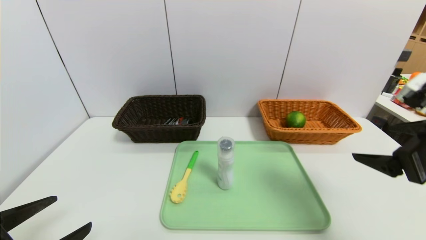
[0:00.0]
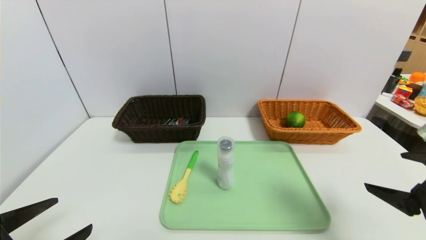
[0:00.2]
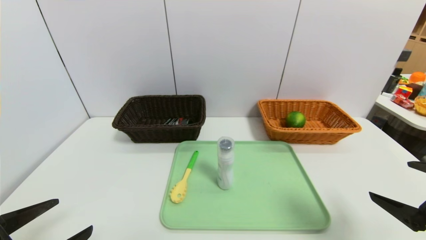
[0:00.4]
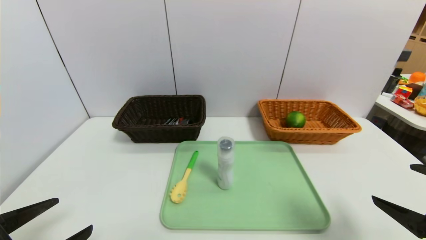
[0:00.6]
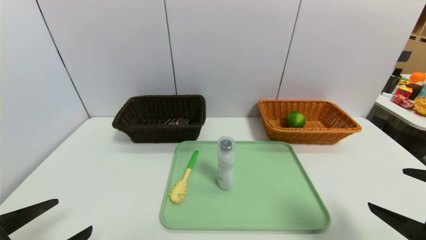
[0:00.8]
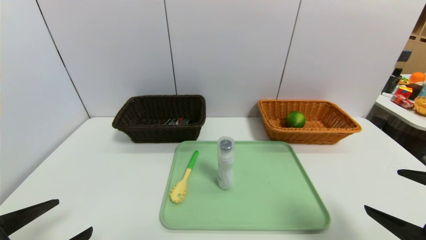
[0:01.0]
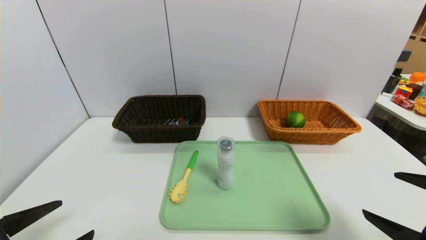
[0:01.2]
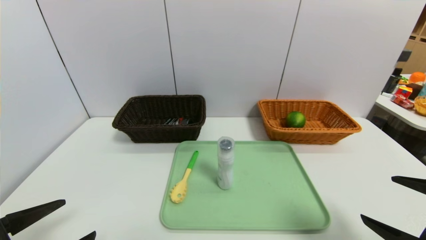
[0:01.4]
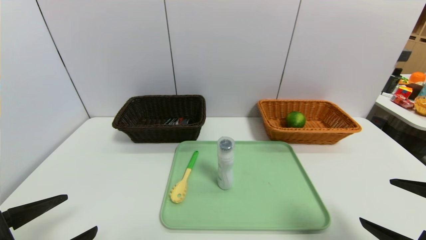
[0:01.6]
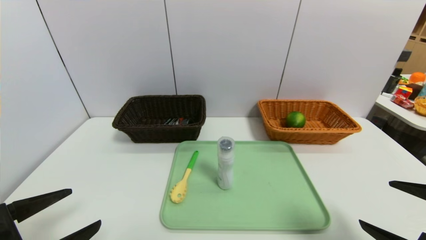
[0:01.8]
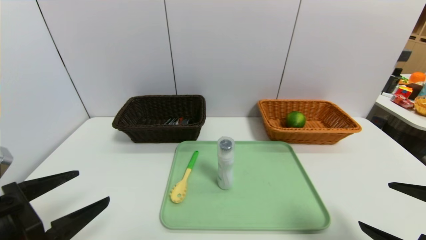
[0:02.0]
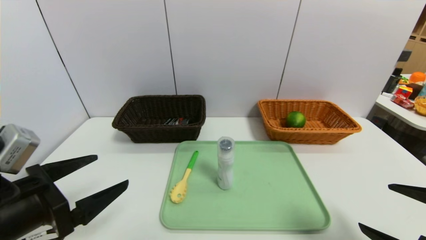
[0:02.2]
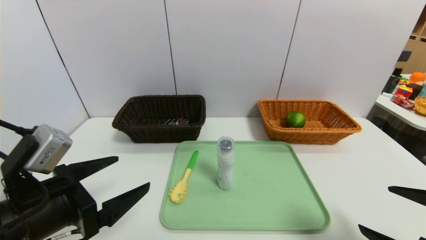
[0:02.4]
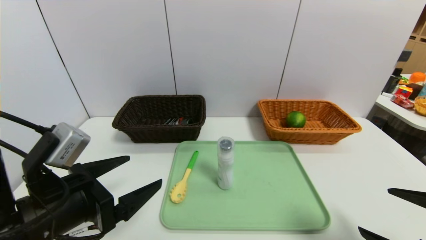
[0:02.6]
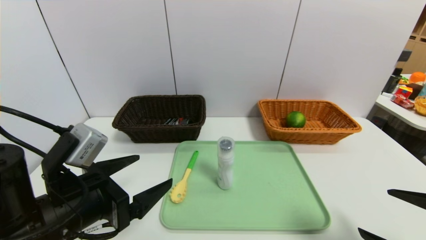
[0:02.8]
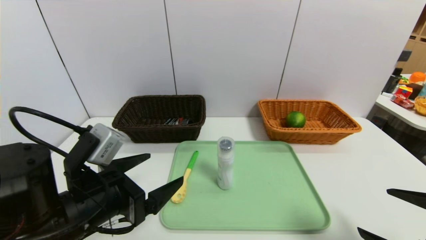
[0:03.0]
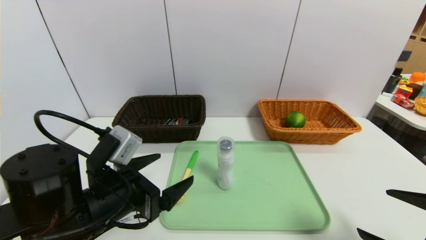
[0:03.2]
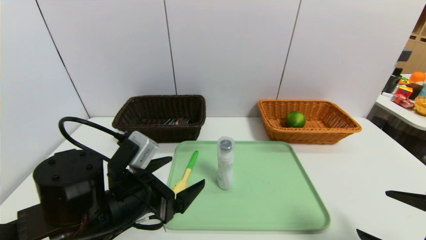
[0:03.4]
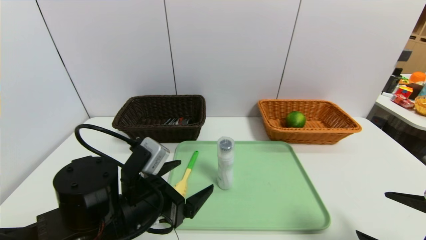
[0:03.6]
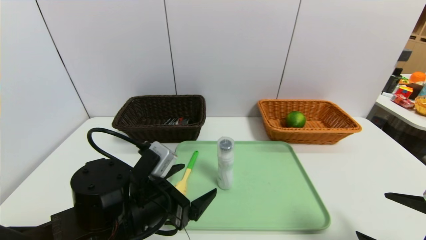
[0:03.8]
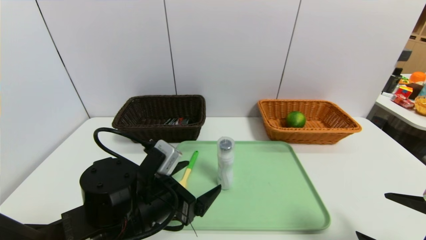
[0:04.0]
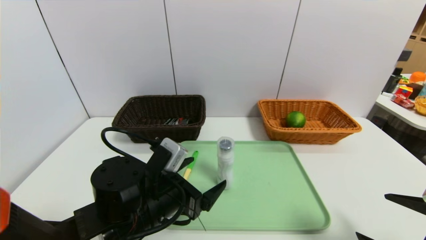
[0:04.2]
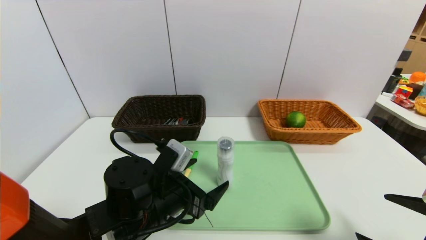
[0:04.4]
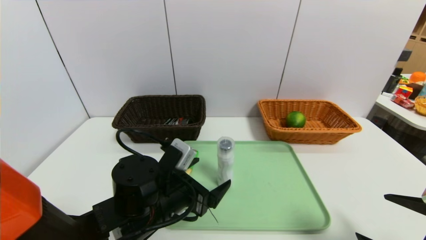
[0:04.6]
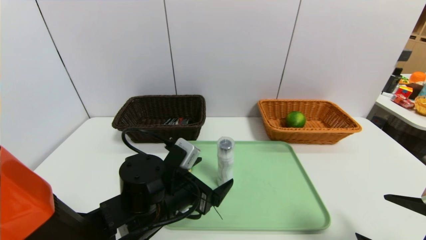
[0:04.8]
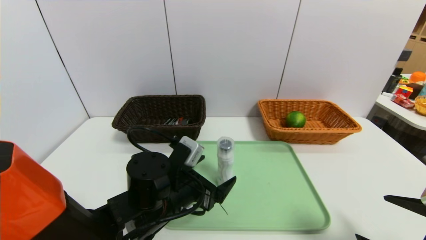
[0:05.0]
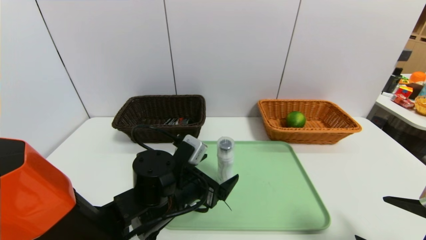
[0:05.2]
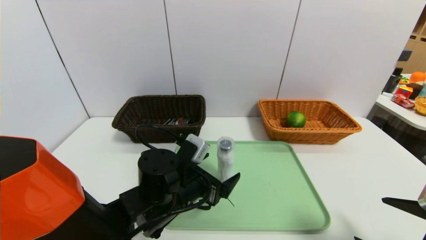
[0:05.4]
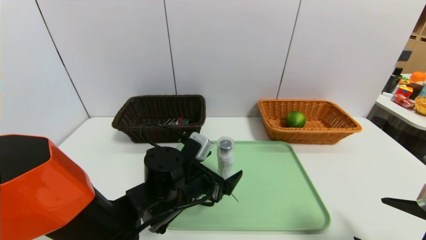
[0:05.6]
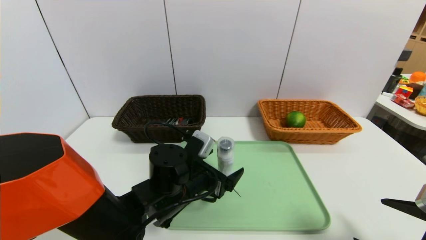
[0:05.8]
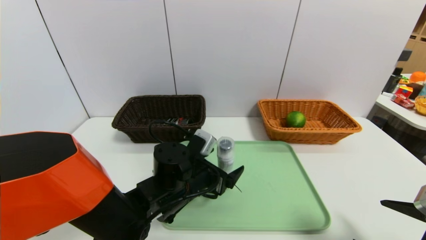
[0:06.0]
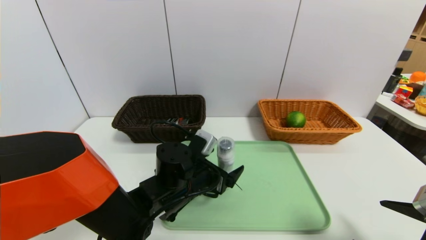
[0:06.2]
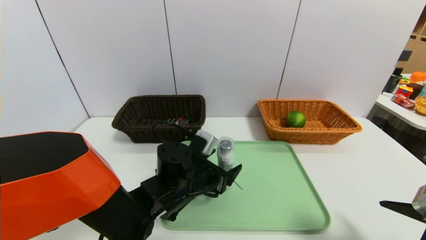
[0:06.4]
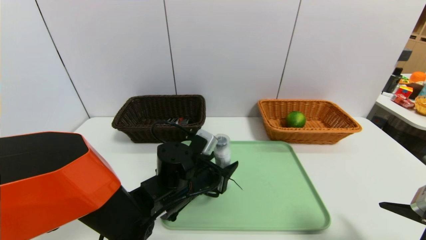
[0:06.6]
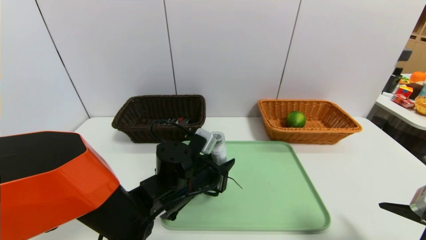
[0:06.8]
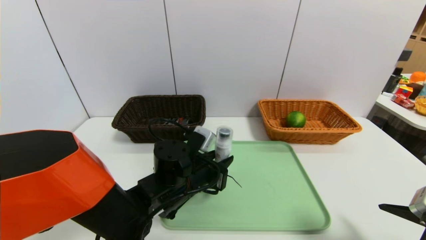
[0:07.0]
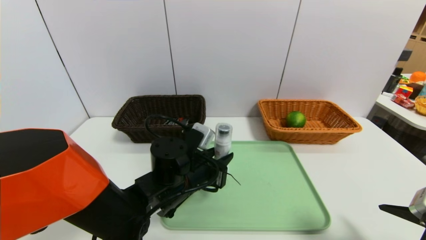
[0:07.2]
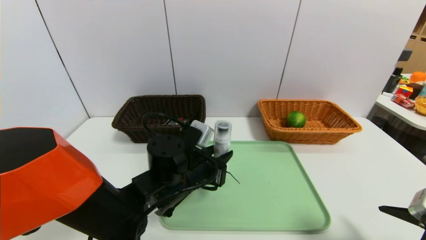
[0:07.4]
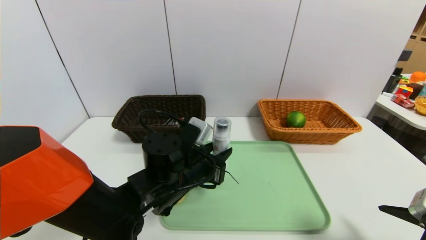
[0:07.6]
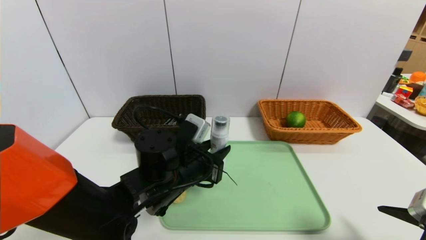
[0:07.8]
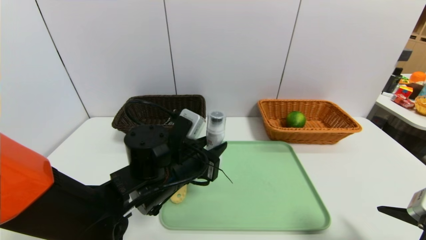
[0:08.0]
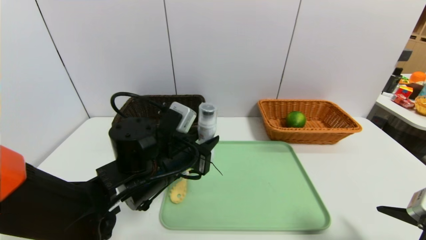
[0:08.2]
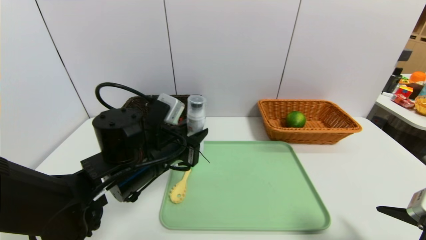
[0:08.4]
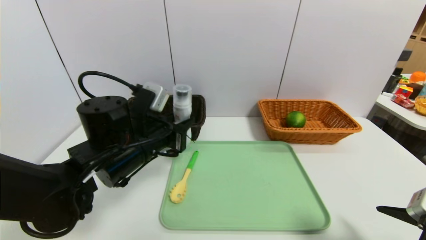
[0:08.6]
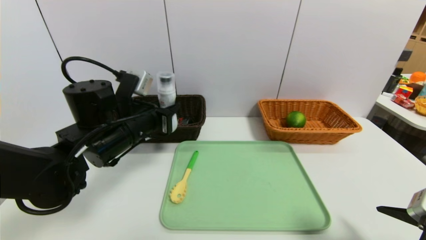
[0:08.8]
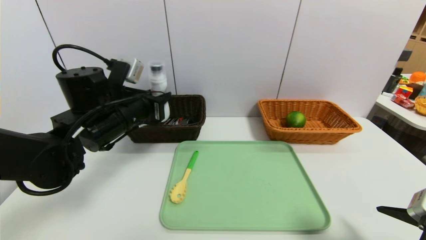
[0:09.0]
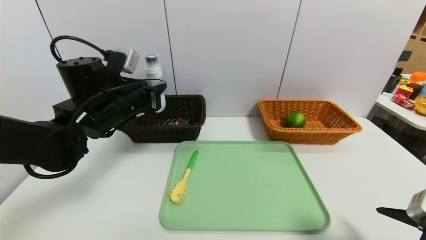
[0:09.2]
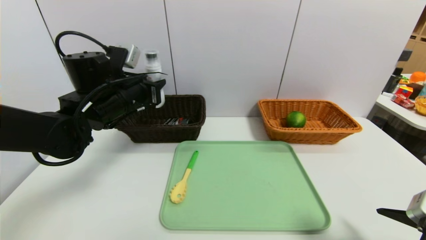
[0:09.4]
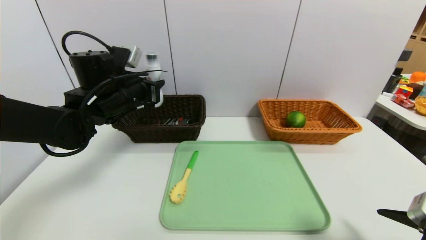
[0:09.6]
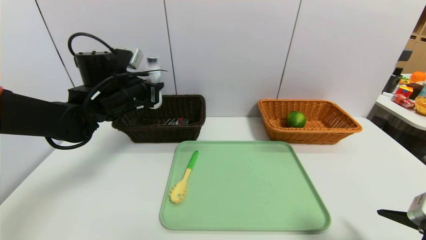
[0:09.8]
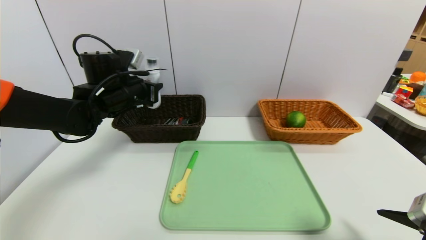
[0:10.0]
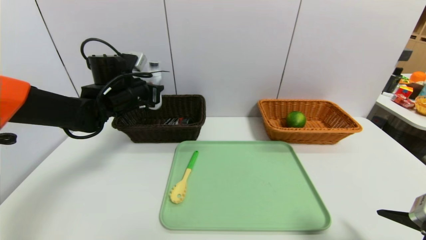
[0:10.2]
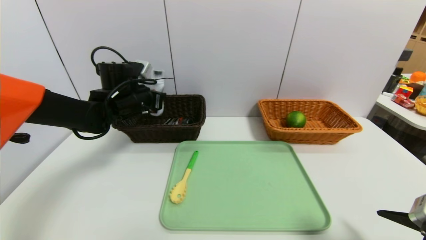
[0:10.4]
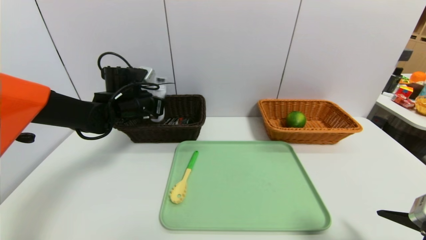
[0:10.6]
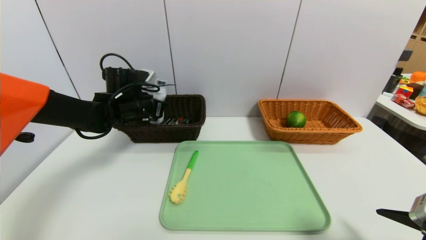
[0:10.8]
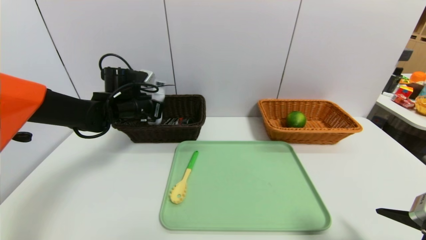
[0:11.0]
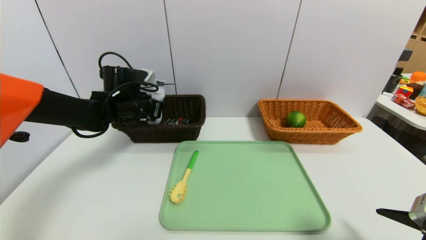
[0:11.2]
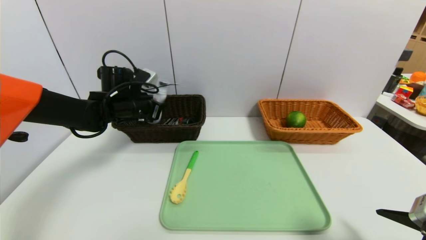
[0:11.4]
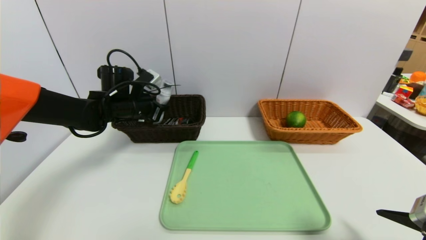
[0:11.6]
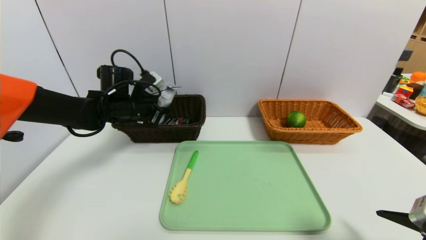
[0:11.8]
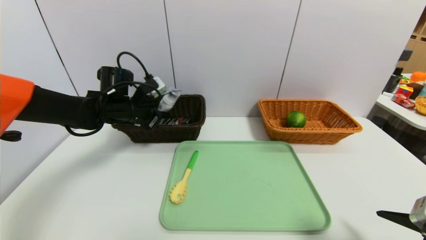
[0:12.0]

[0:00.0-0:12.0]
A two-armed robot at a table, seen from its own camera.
Task of the whole recording: place the food in the right basket with the right gripper, and place the non food items in the left basket with the left gripper.
0:00.0 to 0:01.6: The right gripper is displaced downward and backward by approximately 10 cm.
0:01.6 to 0:03.0: The left gripper moves to the right and forward, about 15 cm.
0:03.0 to 0:04.4: The left gripper travels to the right and downward by roughly 10 cm.
0:04.4 to 0:06.0: The left gripper moves forward, about 5 cm.
0:06.0 to 0:07.6: The left gripper closes.
0:07.6 to 0:09.0: The left gripper is displaced to the left, upward and forward by approximately 15 cm.
0:09.0 to 0:10.4: The left gripper shifts some 10 cm forward.

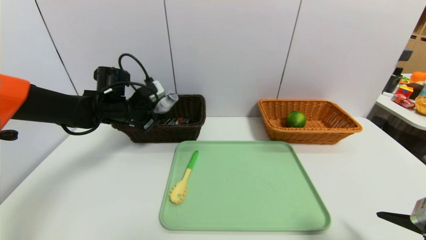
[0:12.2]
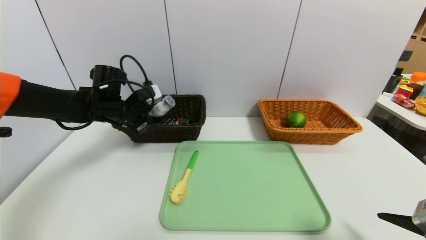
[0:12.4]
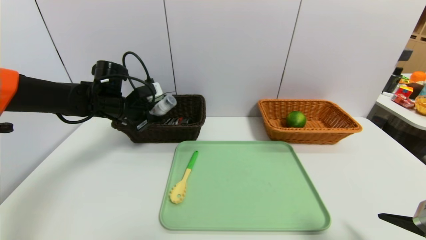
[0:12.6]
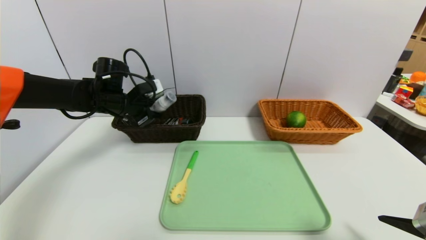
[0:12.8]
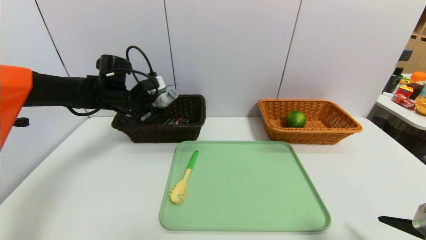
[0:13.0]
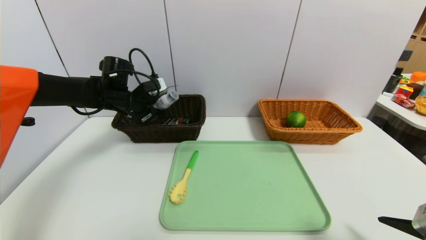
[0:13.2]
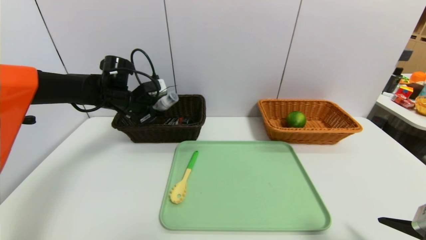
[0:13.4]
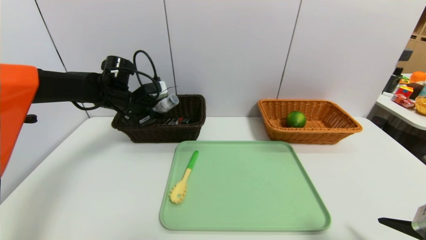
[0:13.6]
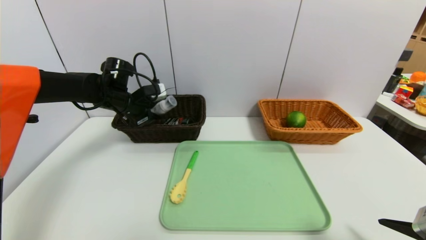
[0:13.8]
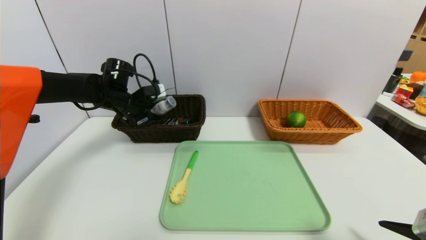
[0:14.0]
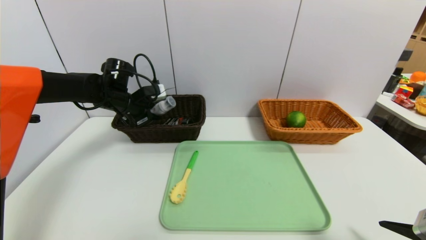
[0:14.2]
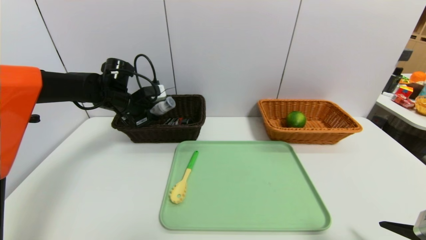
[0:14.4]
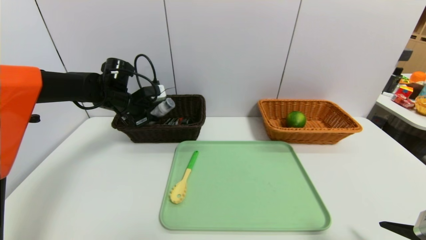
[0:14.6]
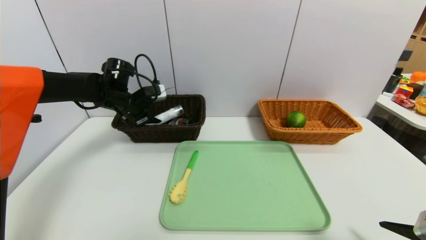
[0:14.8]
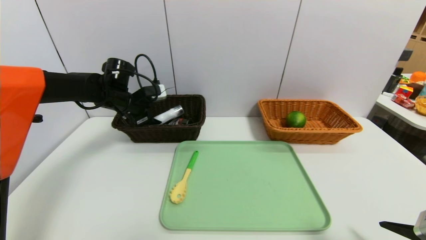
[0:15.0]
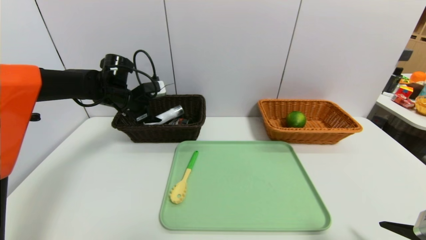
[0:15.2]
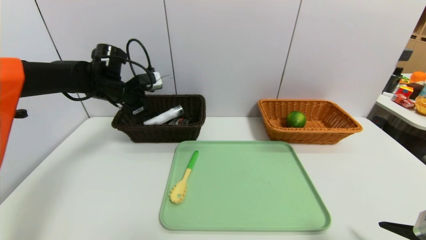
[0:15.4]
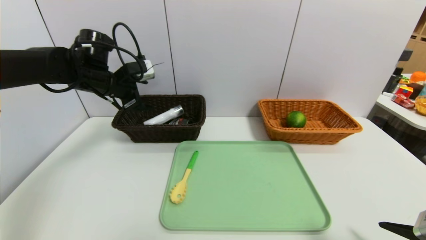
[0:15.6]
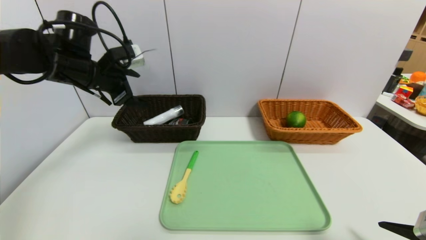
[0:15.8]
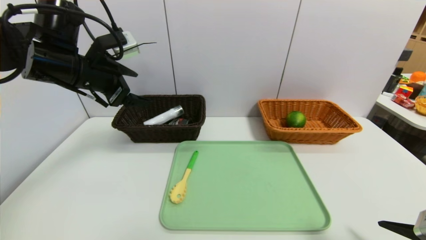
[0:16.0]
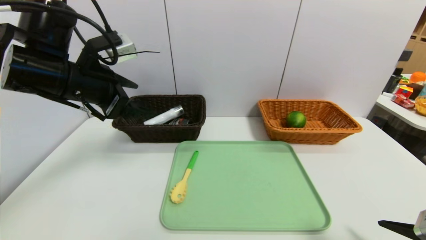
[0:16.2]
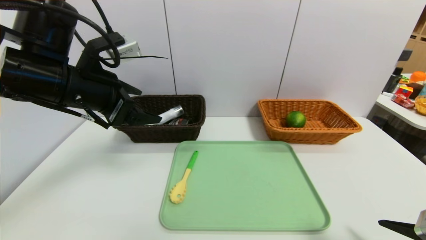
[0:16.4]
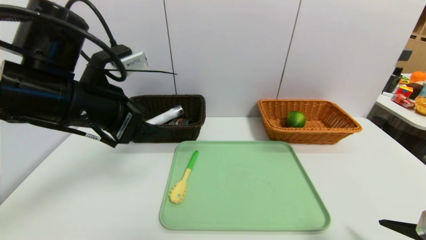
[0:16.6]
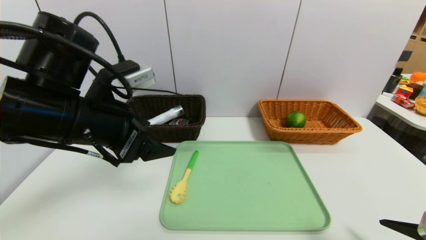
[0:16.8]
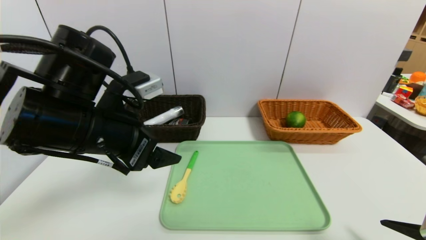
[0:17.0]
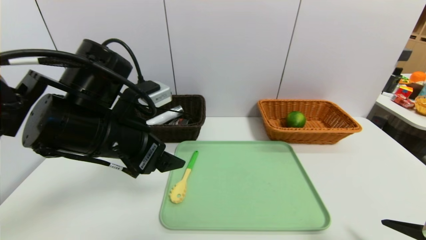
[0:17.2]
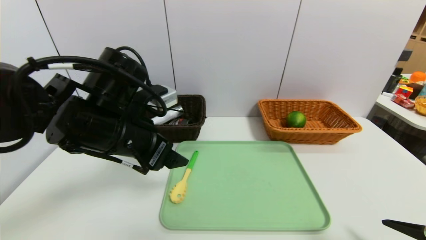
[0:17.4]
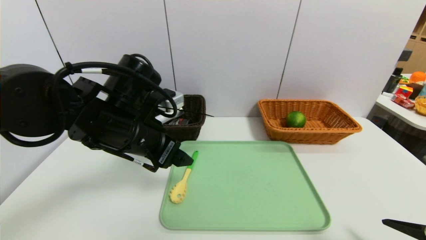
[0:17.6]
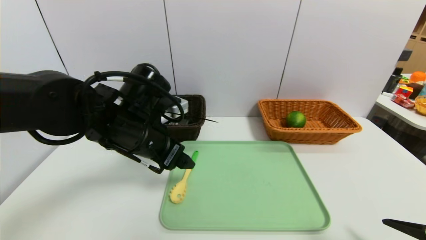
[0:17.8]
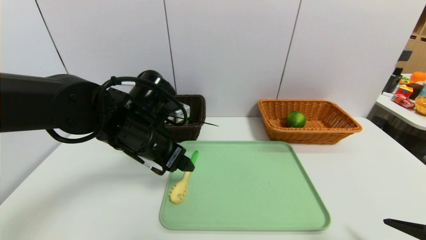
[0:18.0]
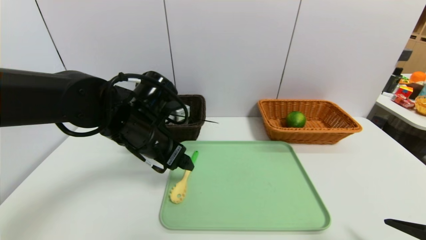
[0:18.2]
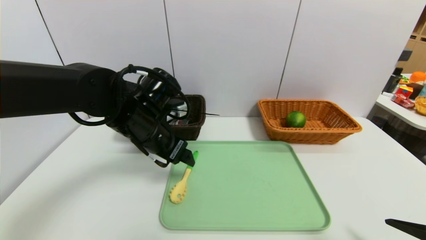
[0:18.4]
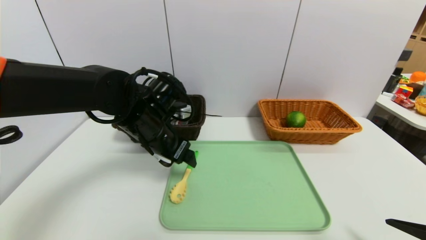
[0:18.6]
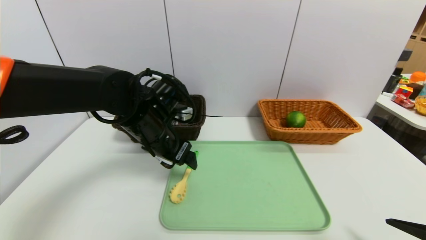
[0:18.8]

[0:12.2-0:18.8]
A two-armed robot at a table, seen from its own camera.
Task of the whole recording: place the food in the right basket with the right gripper, and place the non food items in the left basket with the left gripper.
Step, 0:12.2 to 0:15.8: Grasp the cleaning agent and put it in the left basket.
0:12.2 to 0:13.8: There are only small adjustments of the grippers.
0:13.8 to 0:15.4: The left gripper opens its fingers.
0:15.4 to 0:17.2: The left gripper goes about 25 cm backward and to the right.
0:17.2 to 0:18.8: The left gripper shifts about 10 cm forward and downward.
